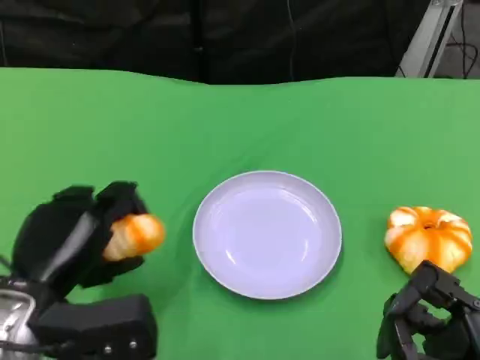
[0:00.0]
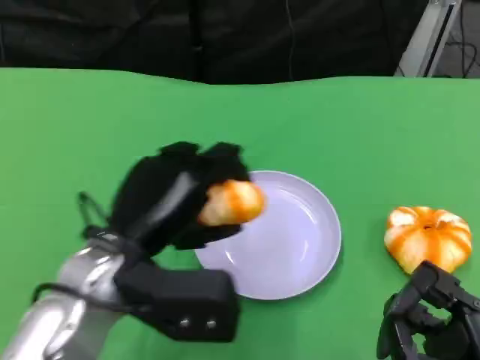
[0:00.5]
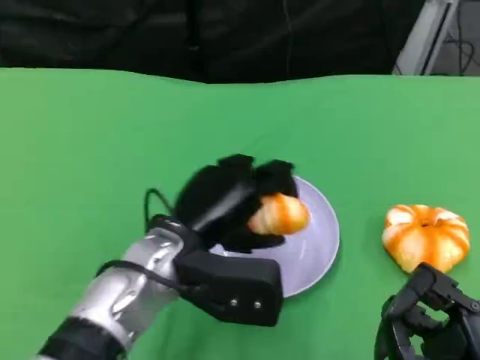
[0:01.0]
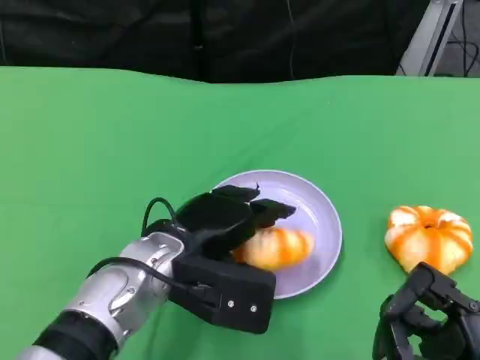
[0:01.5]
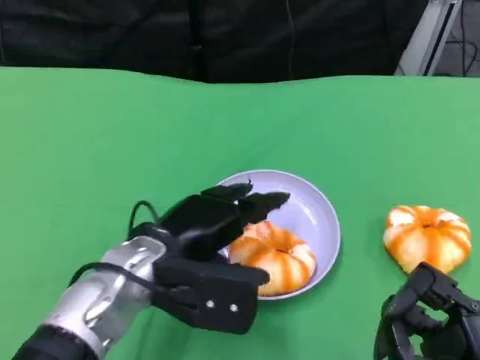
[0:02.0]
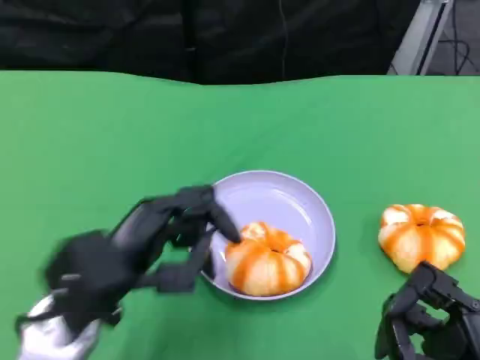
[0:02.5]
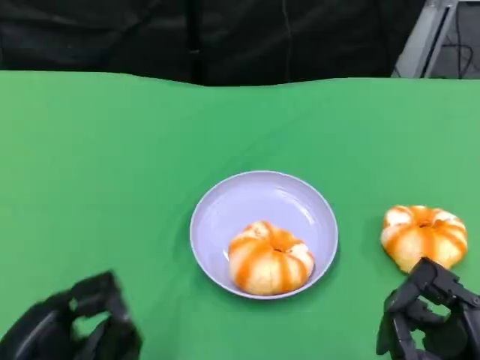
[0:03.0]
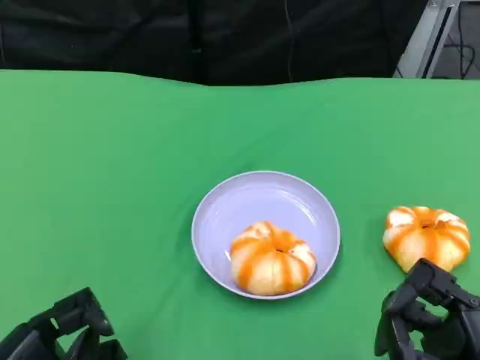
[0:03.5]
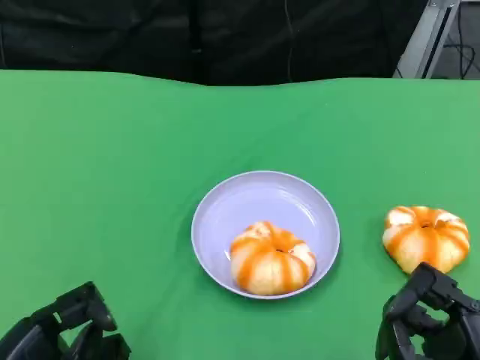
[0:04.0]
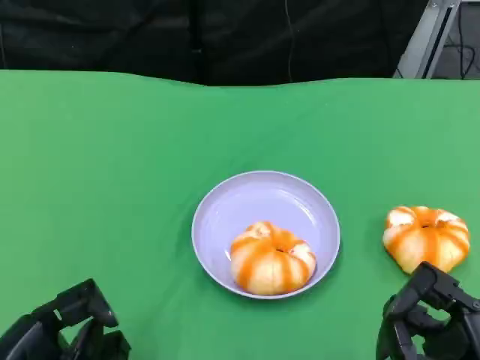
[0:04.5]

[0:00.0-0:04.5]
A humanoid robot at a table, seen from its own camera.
Task of the whole recording: Grasp the bread from the table and place it into the plate.
0:00.0 to 0:02.0: The left hand is displaced to the right by roughly 10 cm.
0:02.0 to 0:04.5: The left hand goes approximately 20 cm to the left and backward.

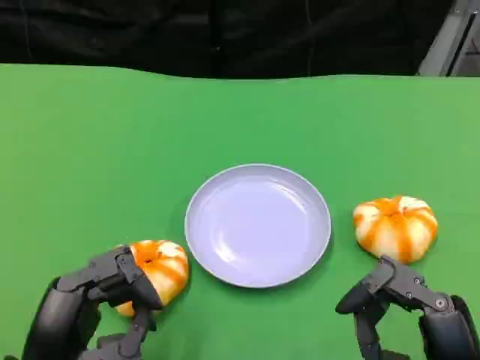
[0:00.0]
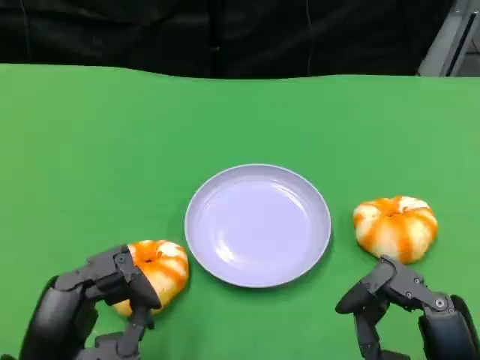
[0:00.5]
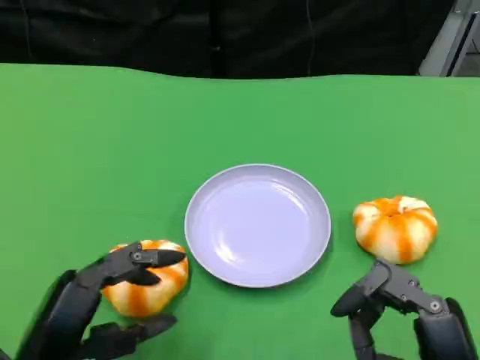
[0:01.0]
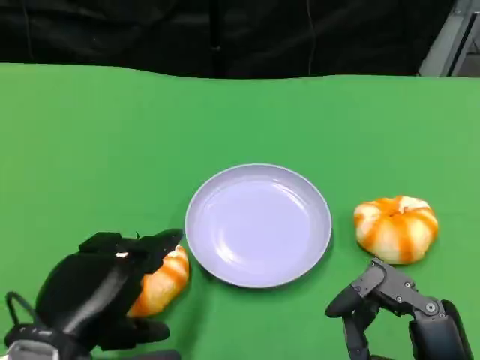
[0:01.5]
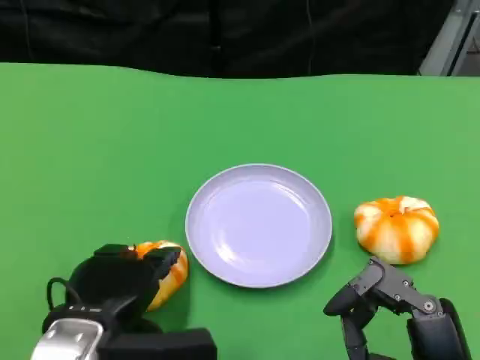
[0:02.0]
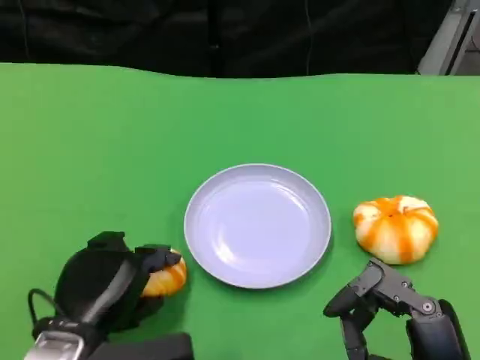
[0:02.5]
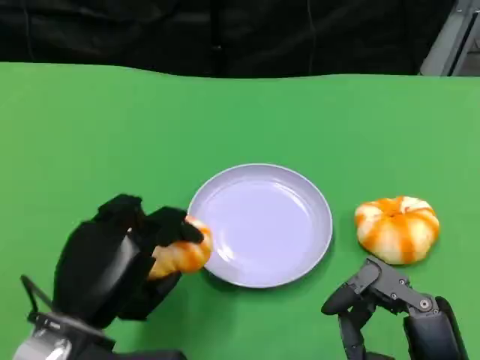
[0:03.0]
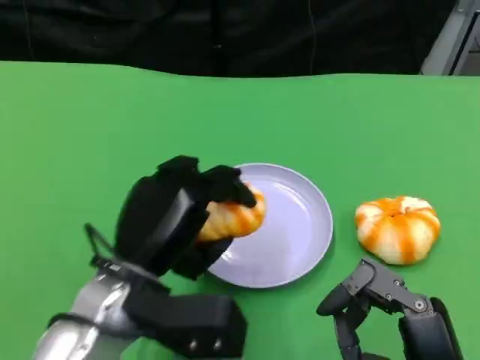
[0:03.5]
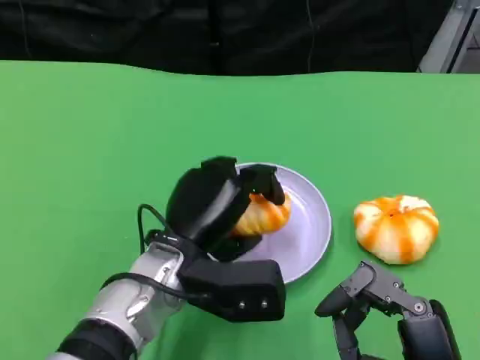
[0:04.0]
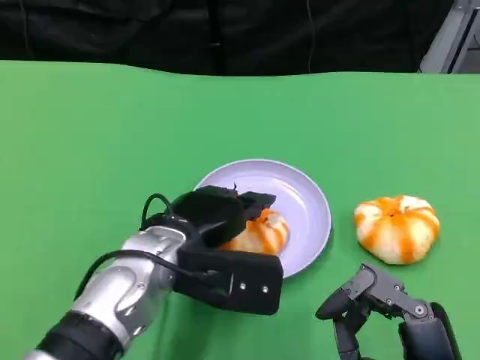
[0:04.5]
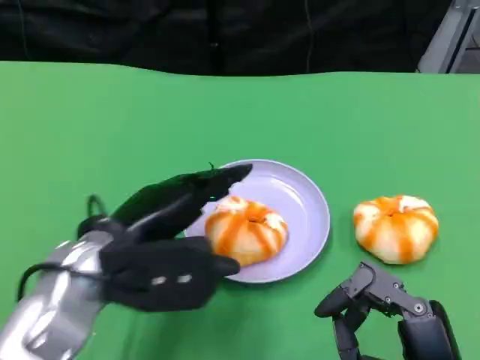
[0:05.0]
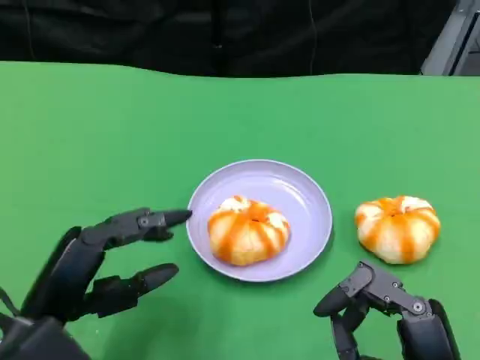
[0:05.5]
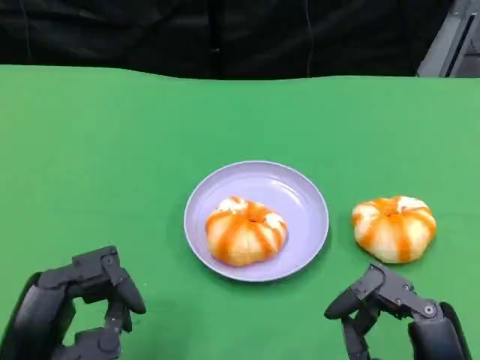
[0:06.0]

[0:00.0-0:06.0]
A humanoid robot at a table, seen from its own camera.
Task of the whole recording: Grasp the bread from the table and place it into the plate.
0:00.0 to 0:02.0: The left hand is displaced forward by about 5 cm.
0:02.0 to 0:04.0: The left hand travels to the right and forward by about 10 cm.
0:04.0 to 0:06.0: The left hand heads to the left and backward, covering some 20 cm.

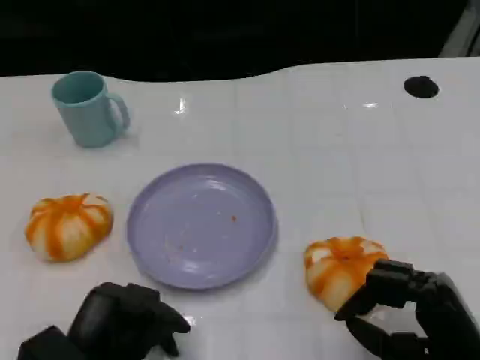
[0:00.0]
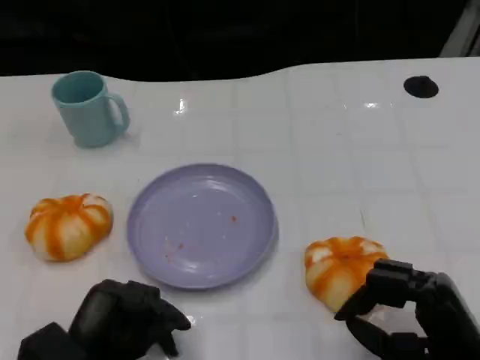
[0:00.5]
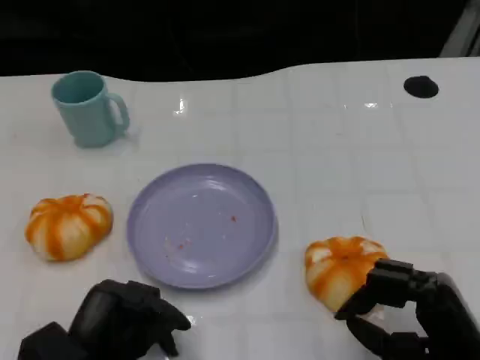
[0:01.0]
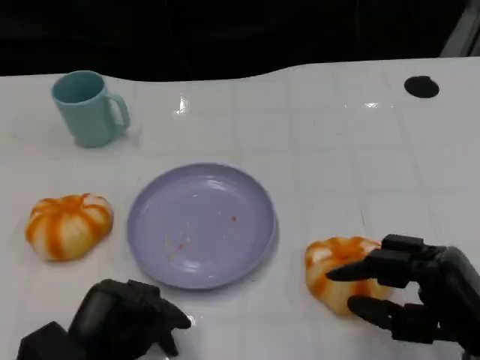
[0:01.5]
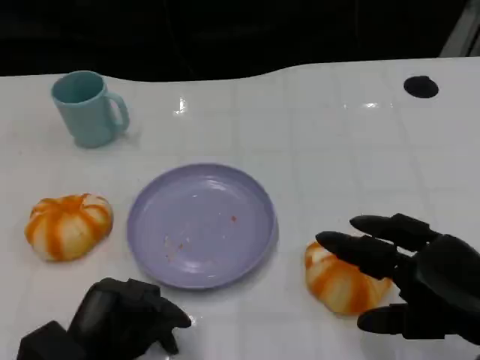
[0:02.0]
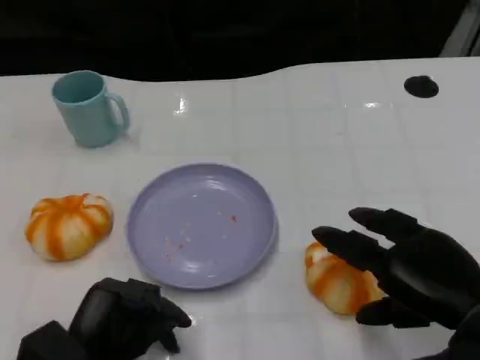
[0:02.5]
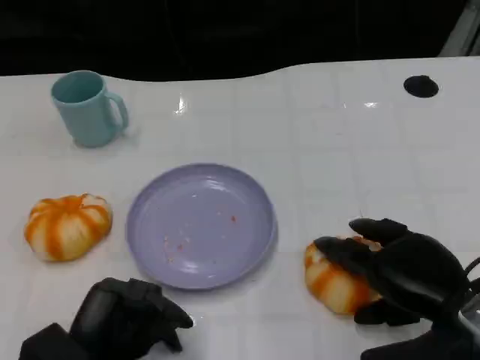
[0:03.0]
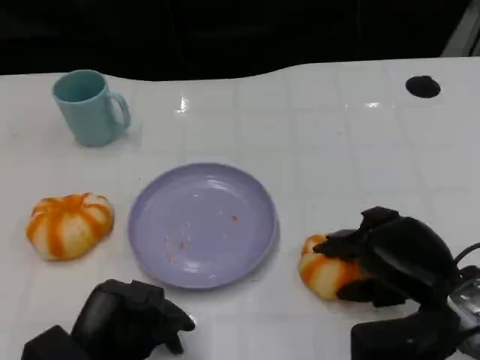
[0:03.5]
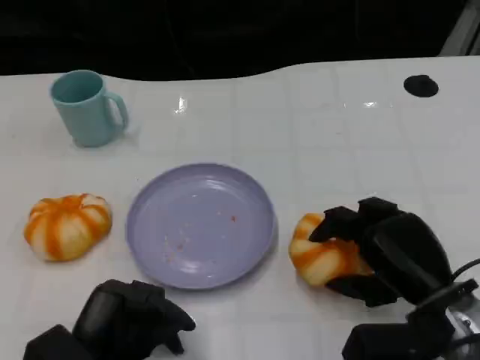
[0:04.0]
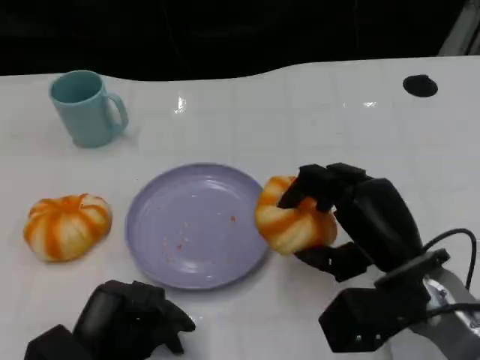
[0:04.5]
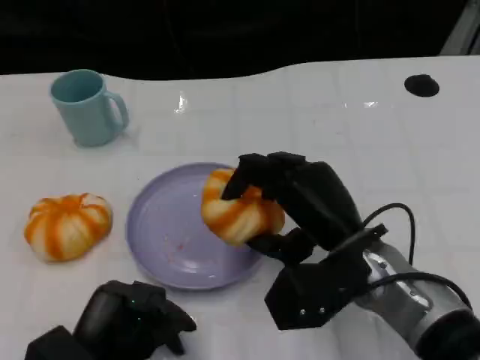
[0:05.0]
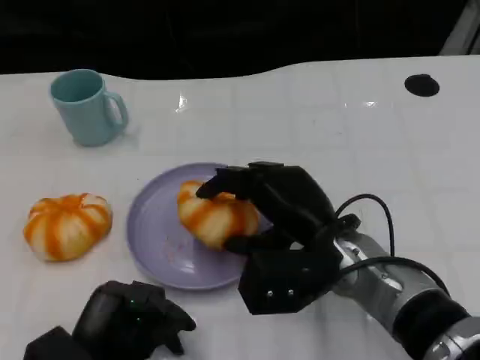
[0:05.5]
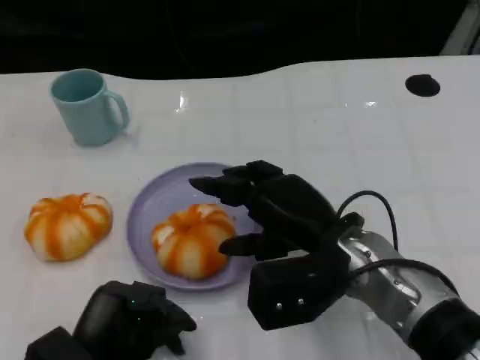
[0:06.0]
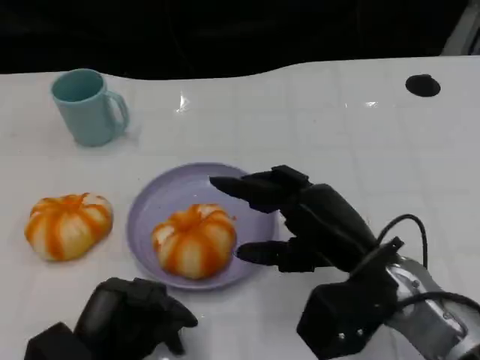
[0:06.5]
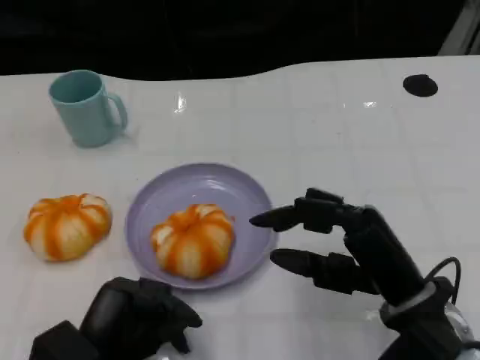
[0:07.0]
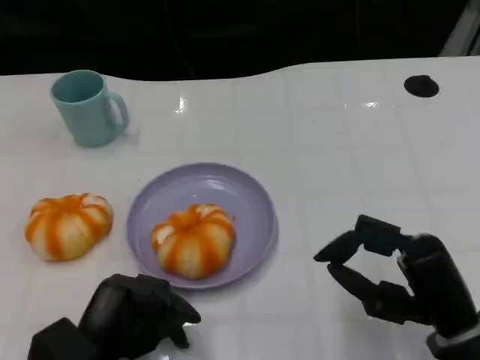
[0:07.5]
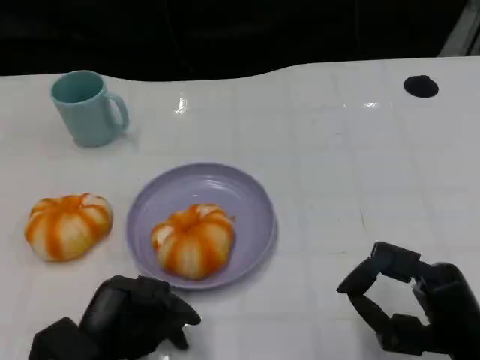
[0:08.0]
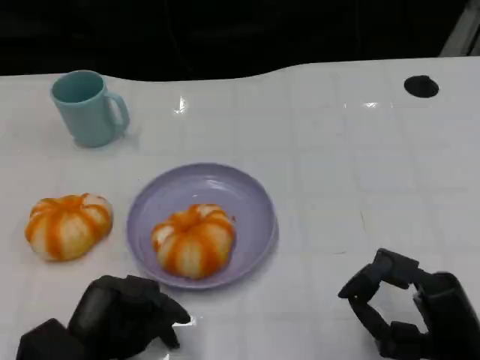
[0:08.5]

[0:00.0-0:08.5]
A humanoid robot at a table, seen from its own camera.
Task of the whole recording: Grasp the bread from the table and place it into the plate.
0:00.0 to 0:02.0: The right hand moves upward, some 10 cm.
0:02.0 to 0:04.0: The right hand heads downward and forward, covering some 10 cm.
0:04.0 to 0:06.5: The right hand shifts about 5 cm to the left.
0:06.5 to 0:08.5: The right hand travels to the right, backward and downward by some 15 cm.

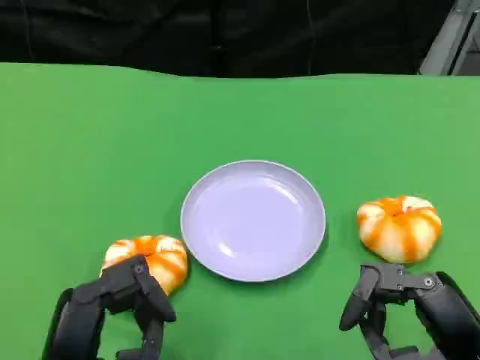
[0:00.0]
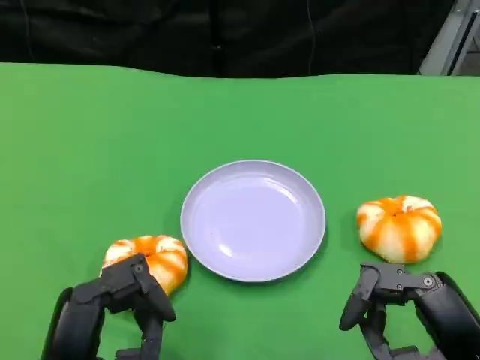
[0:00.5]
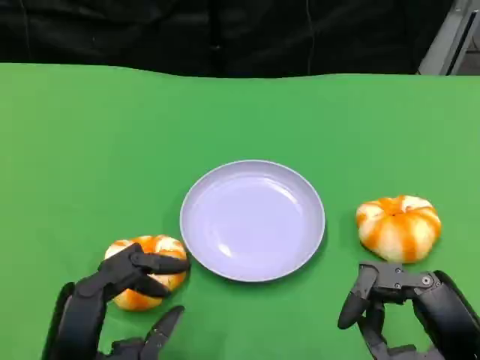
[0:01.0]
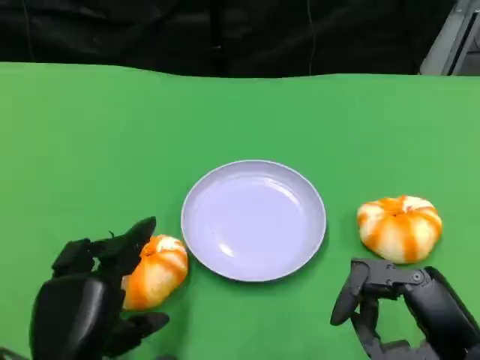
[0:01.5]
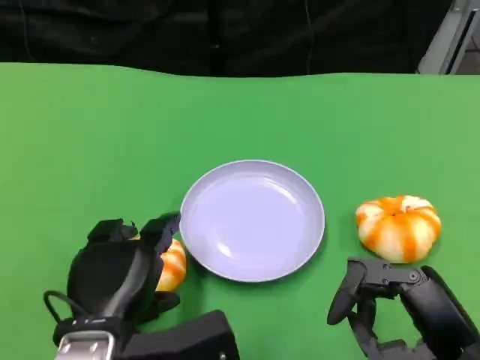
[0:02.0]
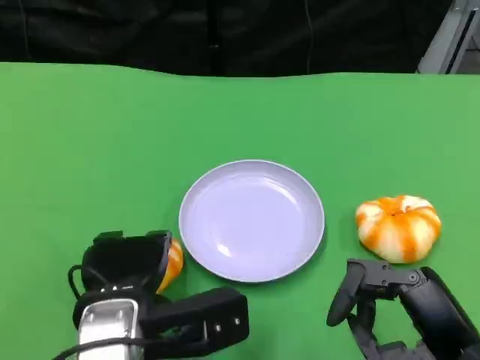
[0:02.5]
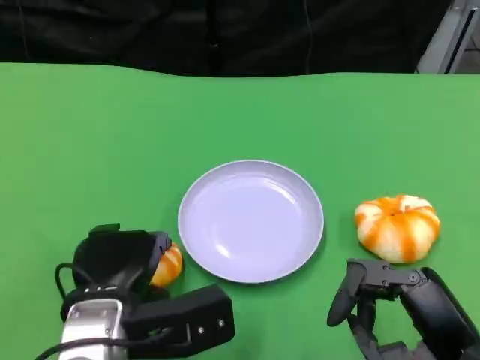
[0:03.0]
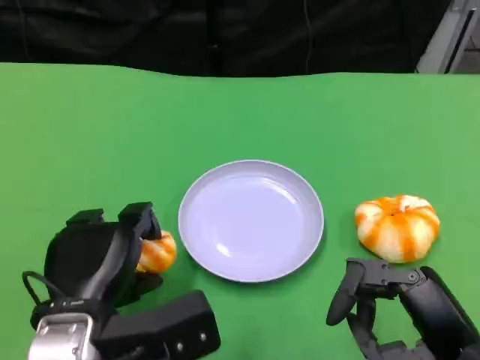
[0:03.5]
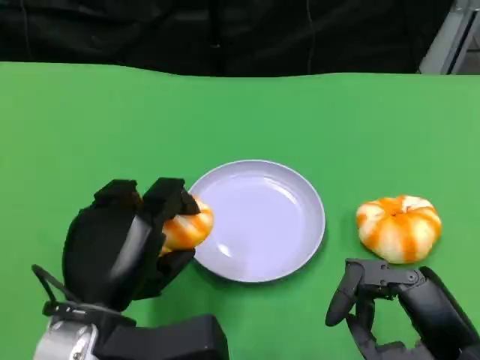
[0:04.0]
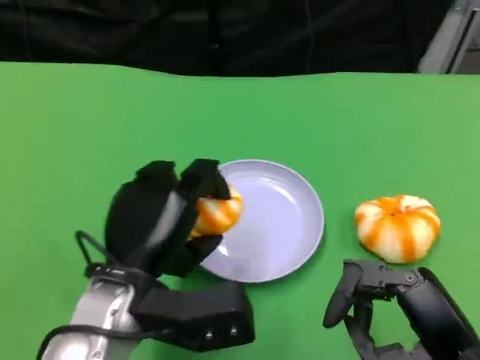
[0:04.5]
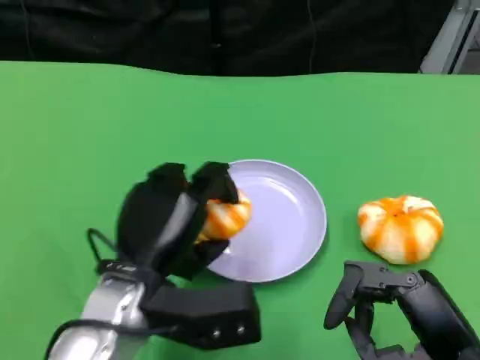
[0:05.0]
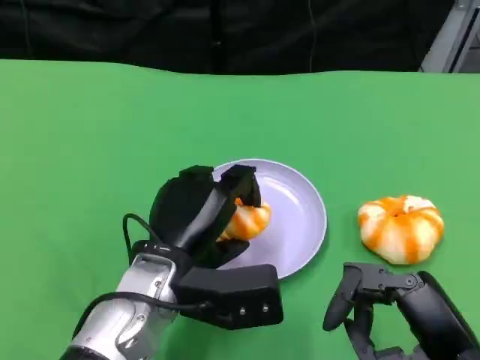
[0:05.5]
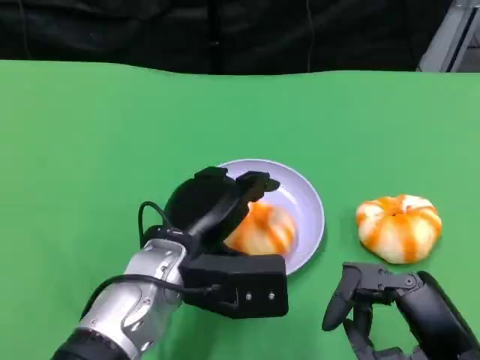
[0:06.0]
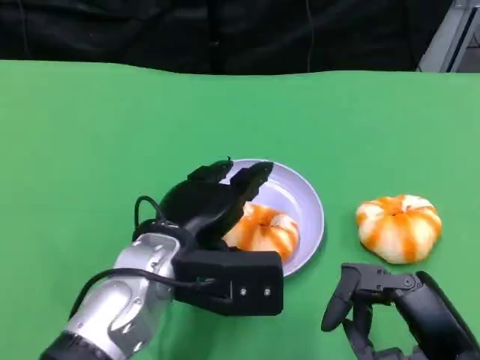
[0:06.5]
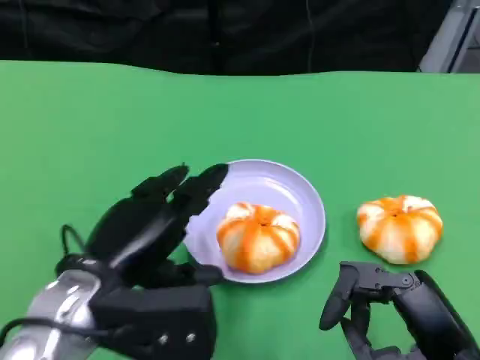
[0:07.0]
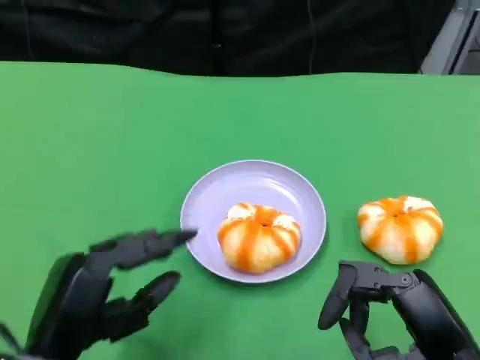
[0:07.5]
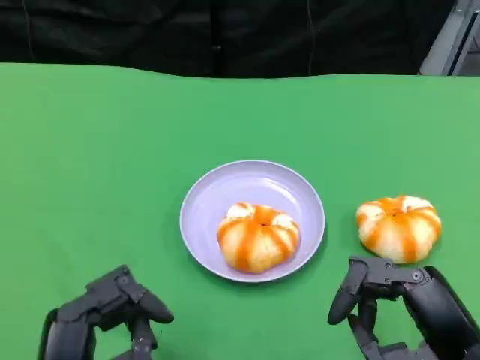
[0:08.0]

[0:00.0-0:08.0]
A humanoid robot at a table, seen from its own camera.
Task of the whole recording: Grasp the bread from the table and place it into the plate.
0:00.0 to 0:02.0: The left hand heads forward, covering some 5 cm.
0:04.0 to 0:06.0: The left hand moves to the right and forward, roughly 10 cm.
0:06.0 to 0:08.0: The left hand heads backward and to the left, covering about 15 cm.
